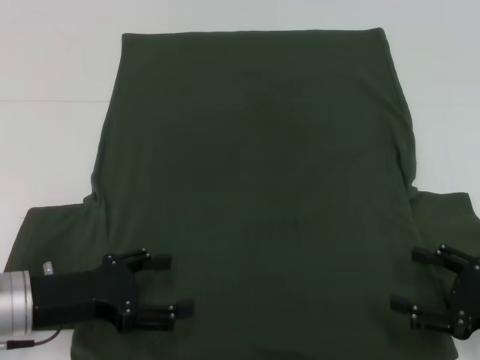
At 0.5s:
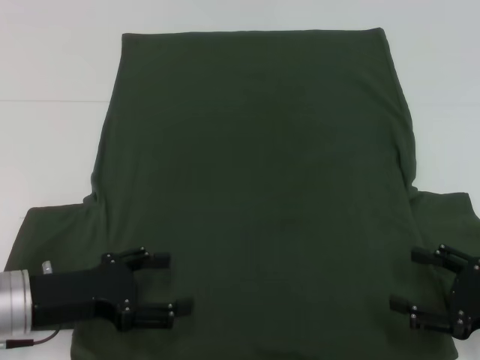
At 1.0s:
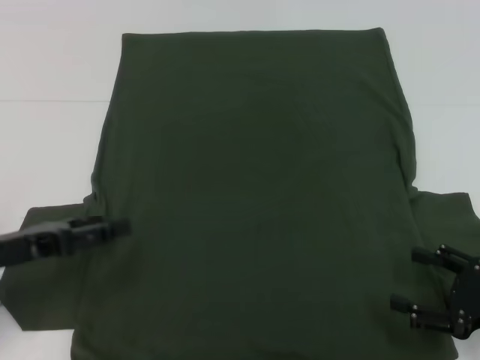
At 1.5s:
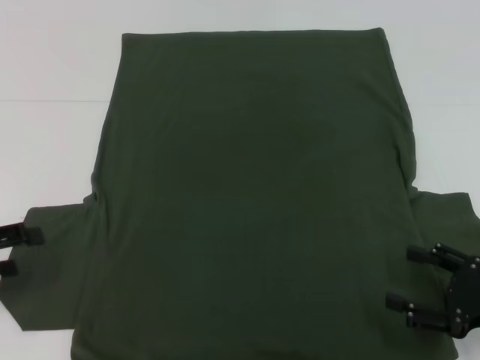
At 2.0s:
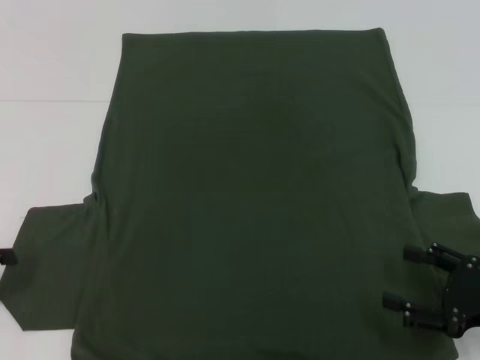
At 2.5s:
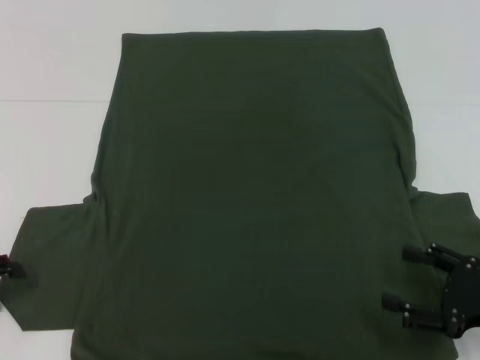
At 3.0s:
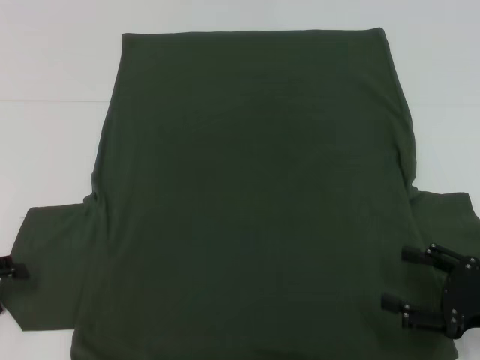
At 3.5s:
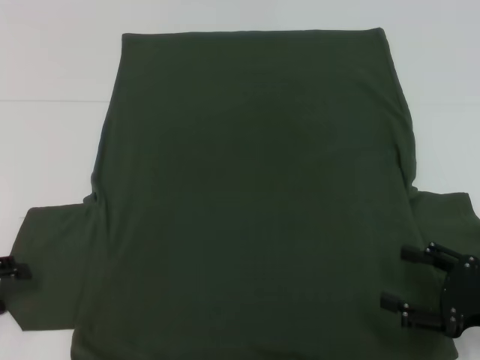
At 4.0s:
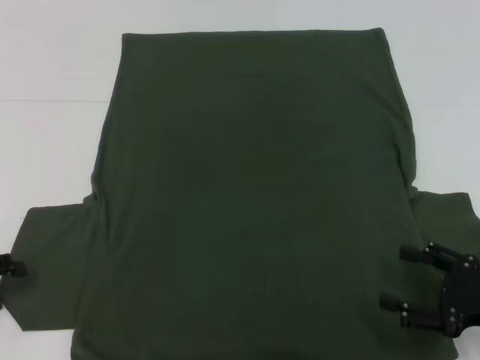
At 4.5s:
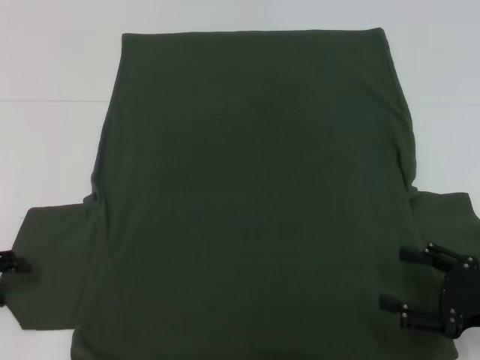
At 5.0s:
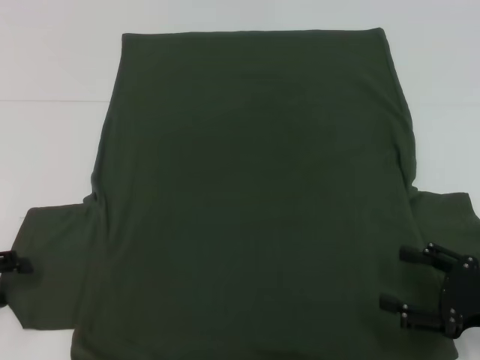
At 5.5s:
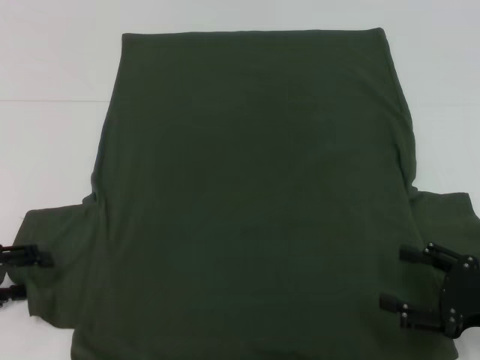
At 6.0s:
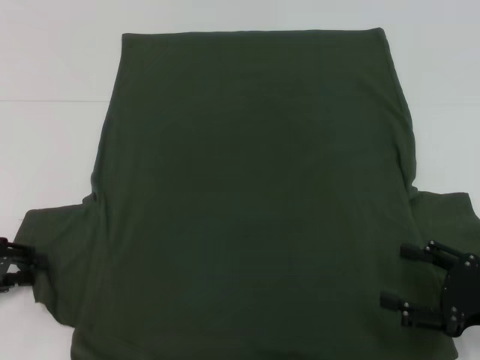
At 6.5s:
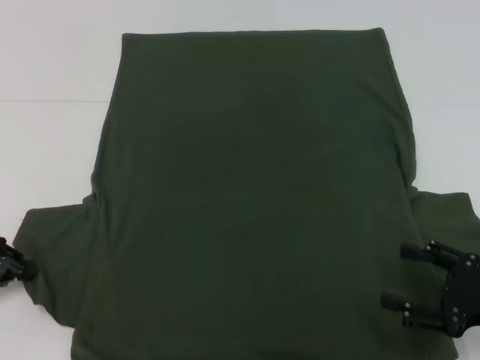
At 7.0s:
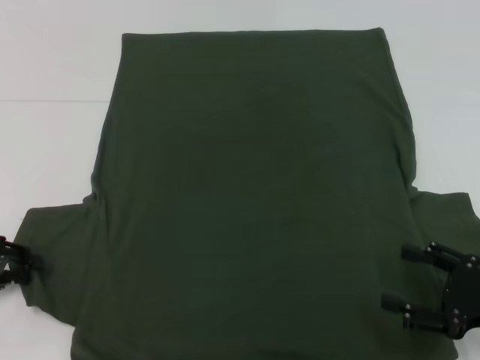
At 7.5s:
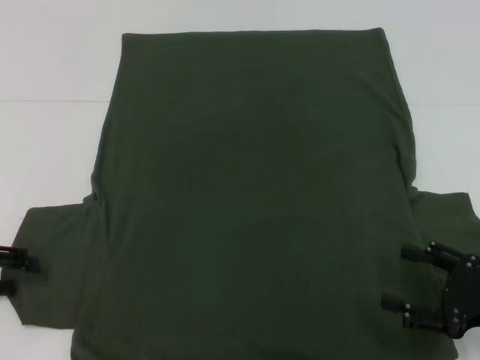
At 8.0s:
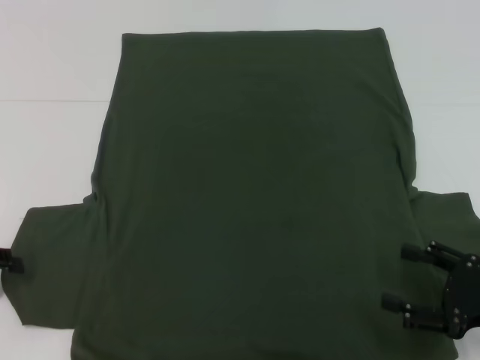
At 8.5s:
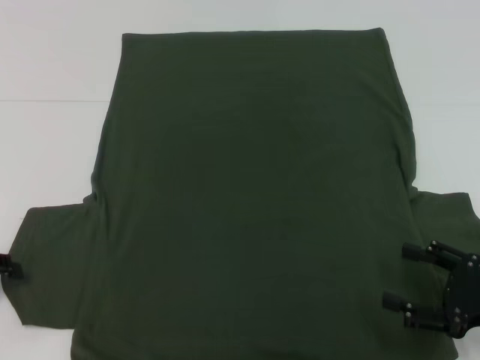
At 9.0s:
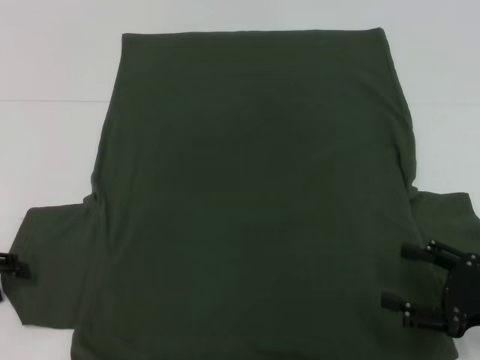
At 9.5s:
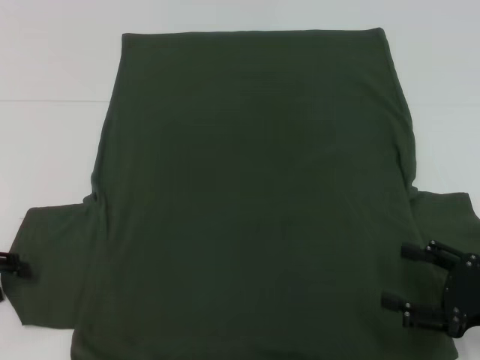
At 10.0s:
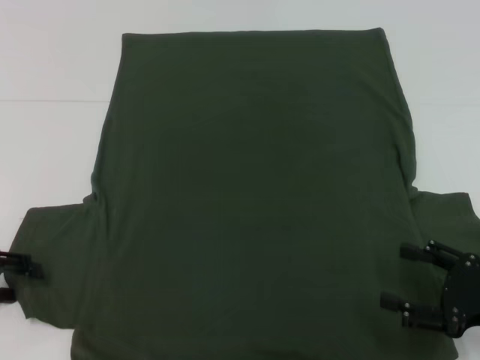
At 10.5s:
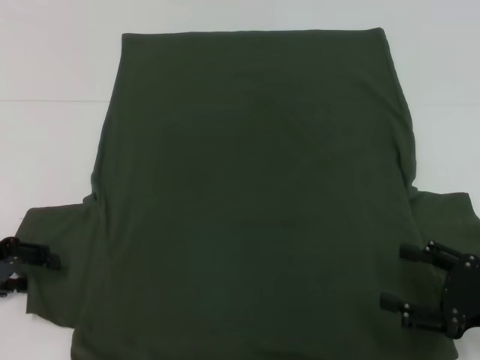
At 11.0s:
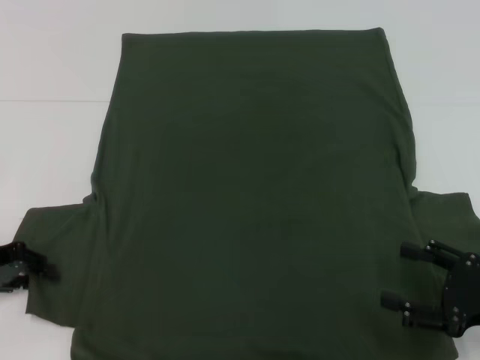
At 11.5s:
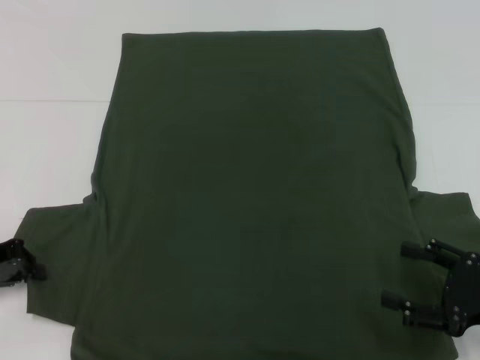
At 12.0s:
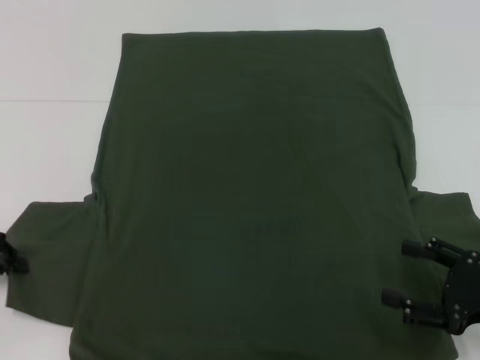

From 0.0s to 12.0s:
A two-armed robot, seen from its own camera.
From 0.0s to 2.0s: The left gripper travels to the left by some 15 cm.
From 4.0s to 6.0s: There are only small adjustments of the grippers.
From 6.0s to 8.0s: The left gripper closes, then opens again.
From 10.0s to 12.0s: The left gripper closes.

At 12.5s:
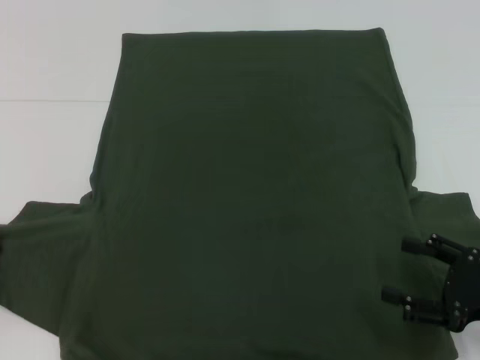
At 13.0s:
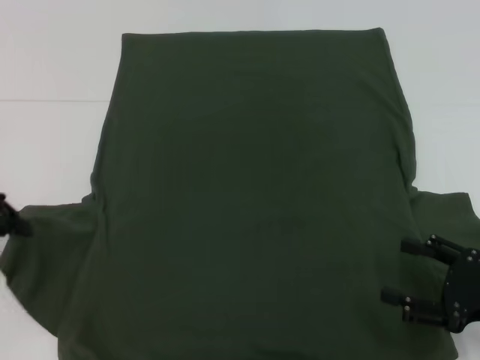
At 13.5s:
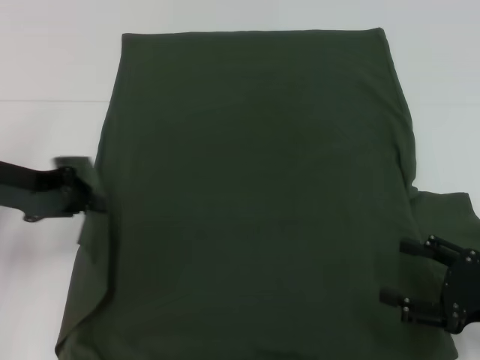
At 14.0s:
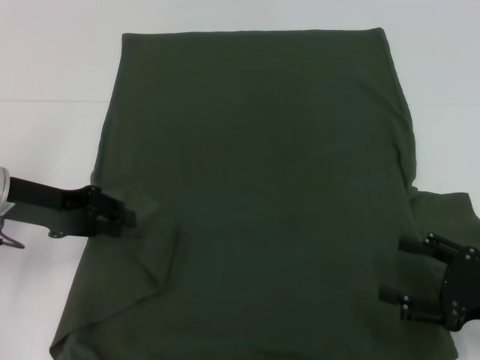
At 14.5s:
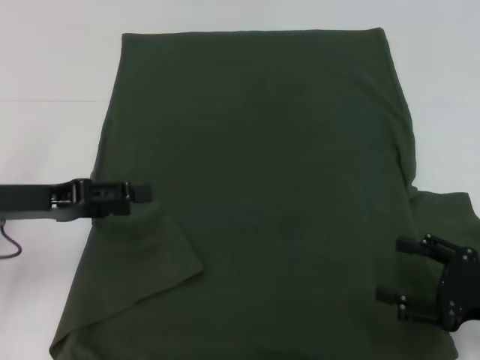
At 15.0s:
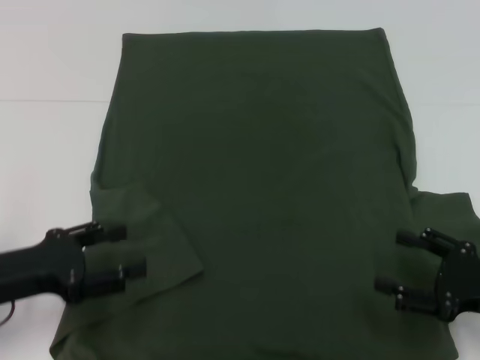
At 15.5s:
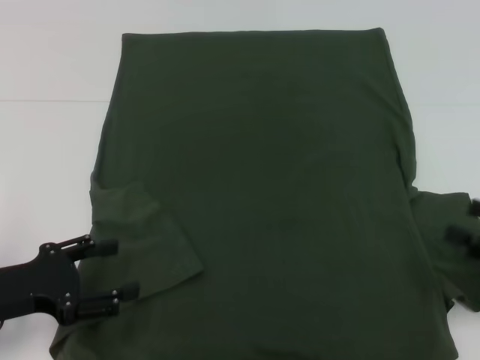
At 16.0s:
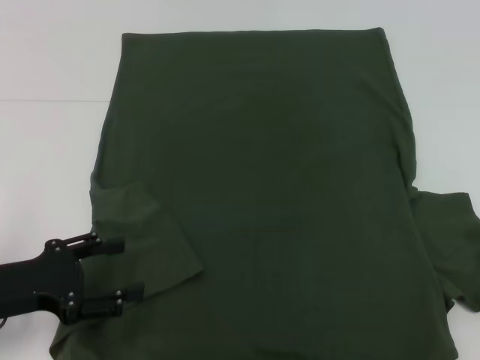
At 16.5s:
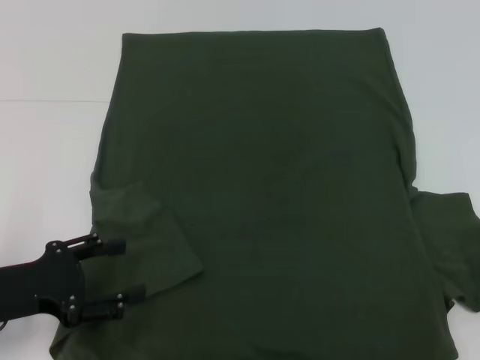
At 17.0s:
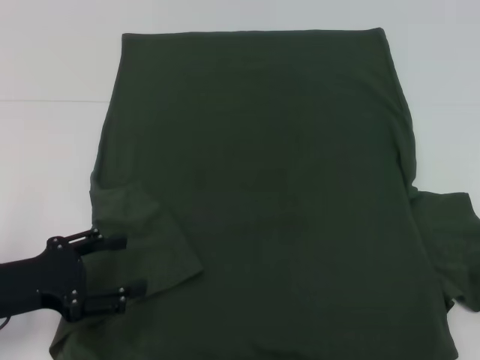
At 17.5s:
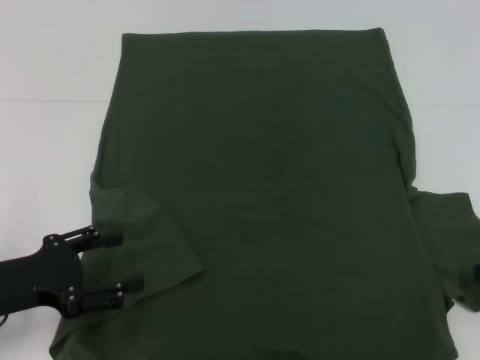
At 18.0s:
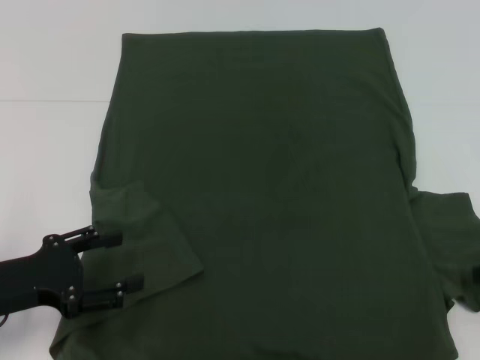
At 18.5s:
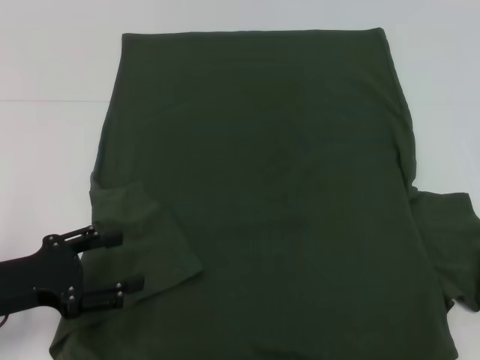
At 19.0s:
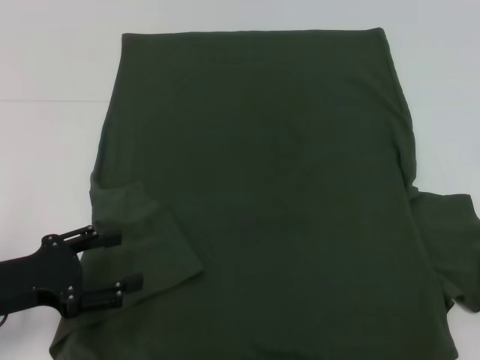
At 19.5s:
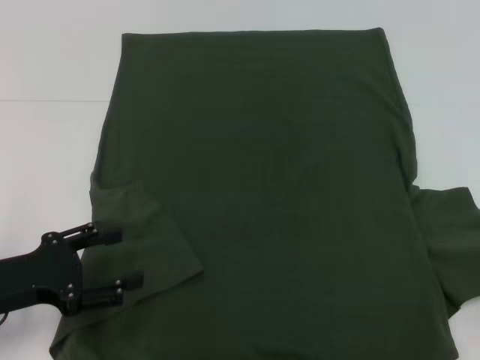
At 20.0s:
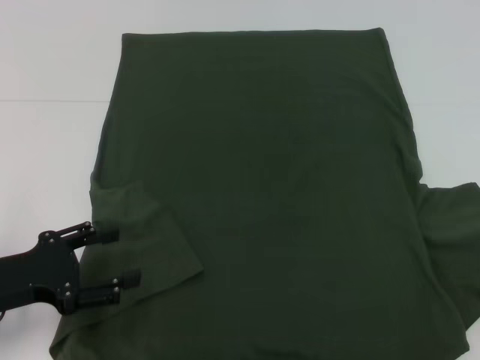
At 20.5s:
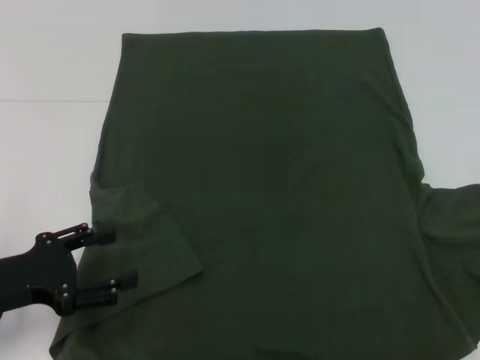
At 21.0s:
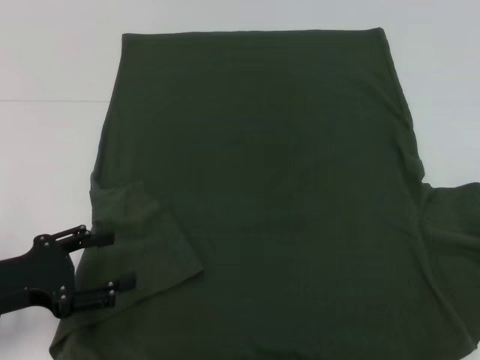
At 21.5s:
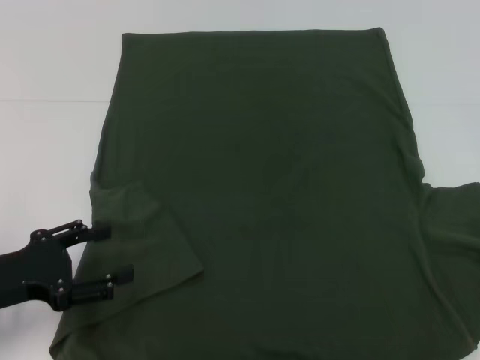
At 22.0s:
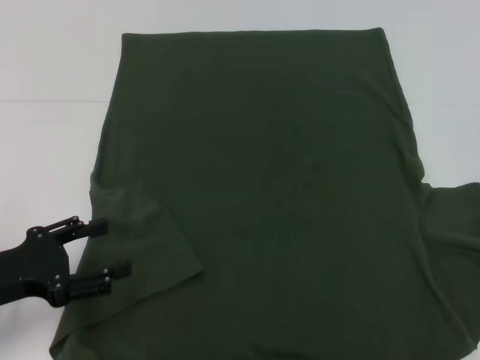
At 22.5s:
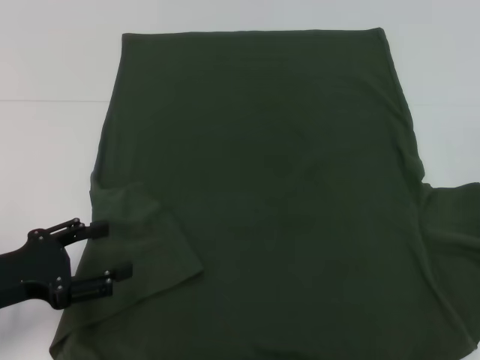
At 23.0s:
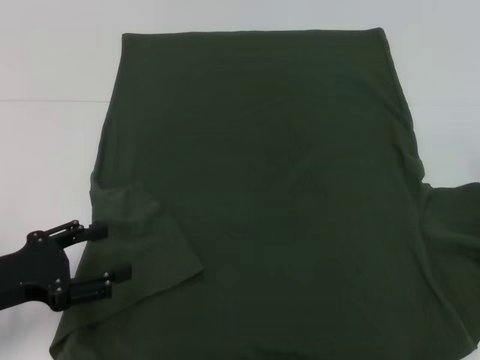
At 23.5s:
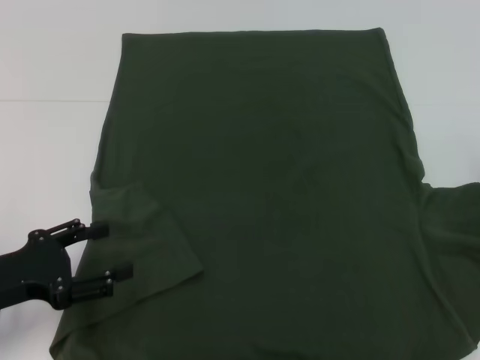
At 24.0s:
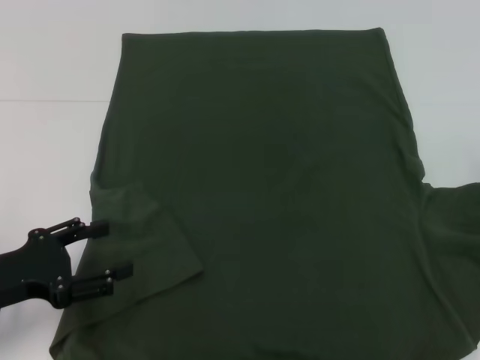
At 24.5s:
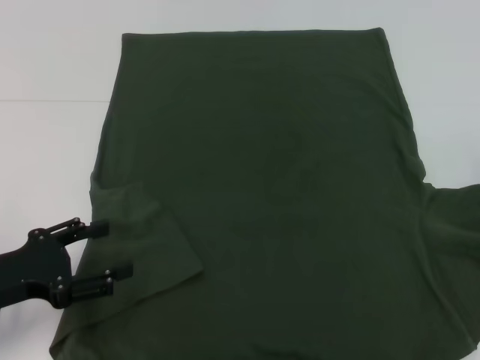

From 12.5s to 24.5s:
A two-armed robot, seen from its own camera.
From 12.5s to 14.5s: The left gripper is displaced to the right by about 10 cm, and opens up.
From 14.5s to 16.5s: The left gripper goes some 10 cm backward; the right gripper goes approximately 15 cm upward, to the right and forward.
From 18.5s to 20.5s: The right gripper is displaced upward by about 10 cm, and closes its fingers.

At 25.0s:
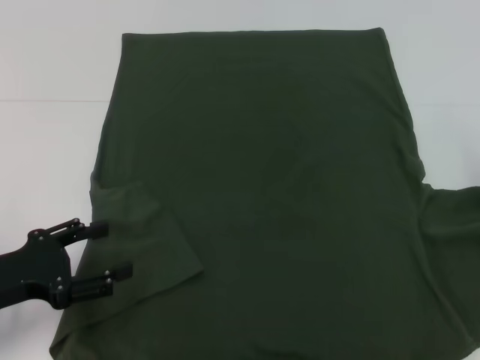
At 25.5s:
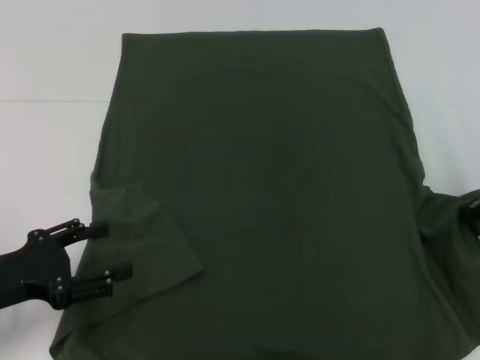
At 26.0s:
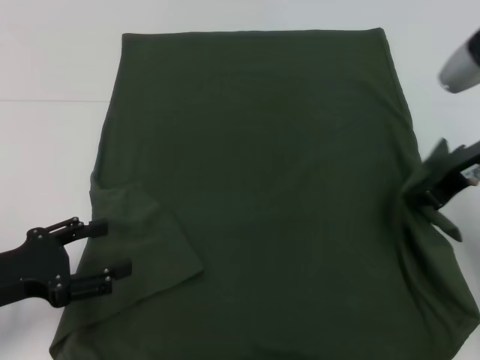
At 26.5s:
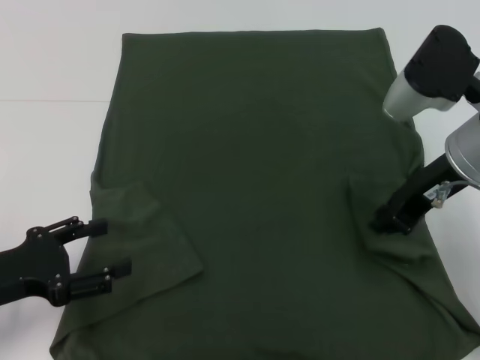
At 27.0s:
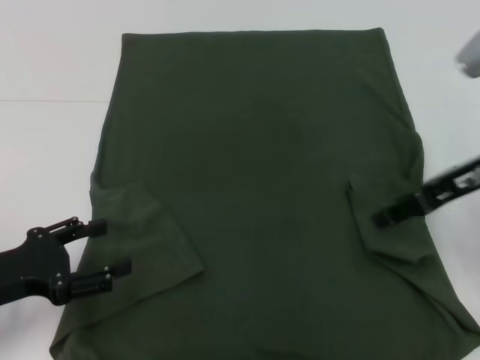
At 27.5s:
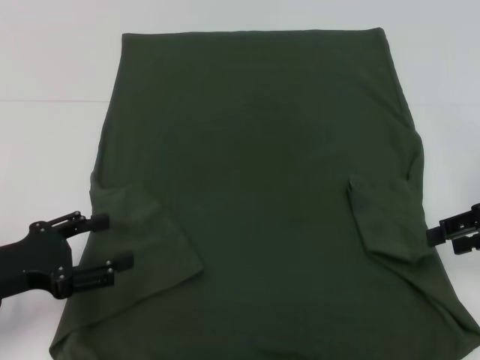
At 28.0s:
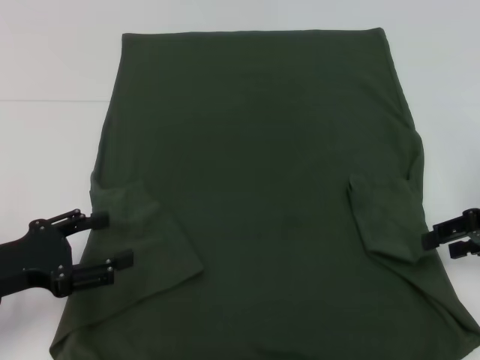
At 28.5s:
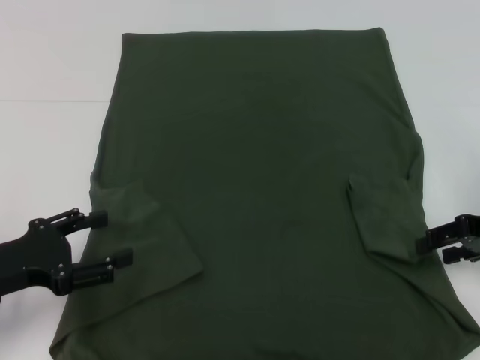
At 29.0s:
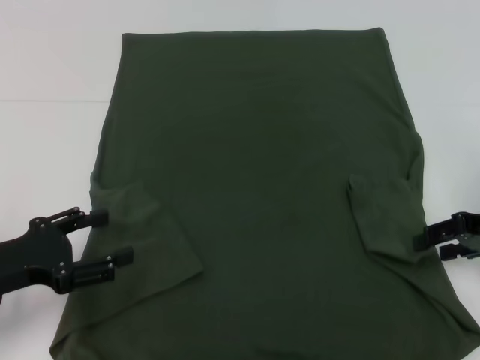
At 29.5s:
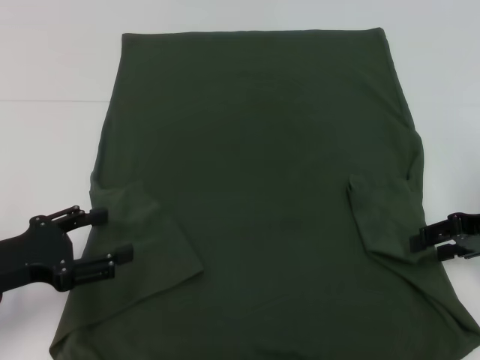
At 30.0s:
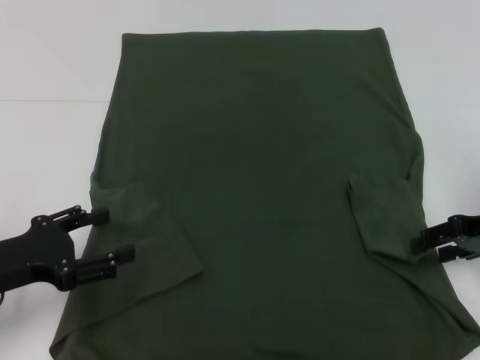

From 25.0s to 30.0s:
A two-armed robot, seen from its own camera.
From 25.0s to 27.5s: The right gripper travels to the left and back again, about 15 cm each way, and opens up.
From 27.5s to 30.0s: The grippers make only small movements.
